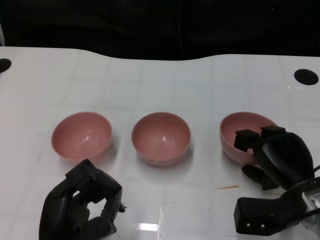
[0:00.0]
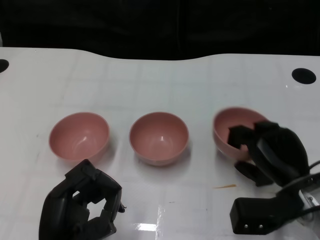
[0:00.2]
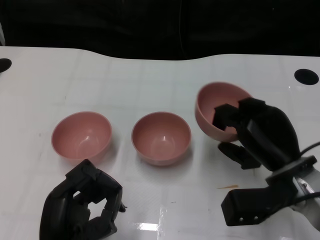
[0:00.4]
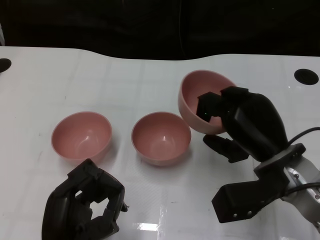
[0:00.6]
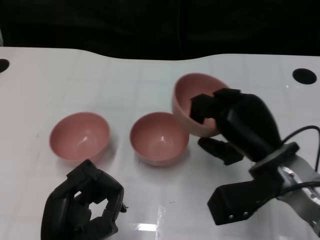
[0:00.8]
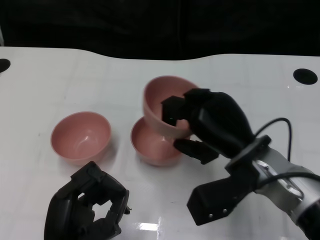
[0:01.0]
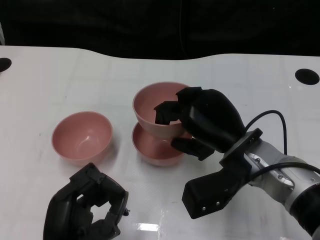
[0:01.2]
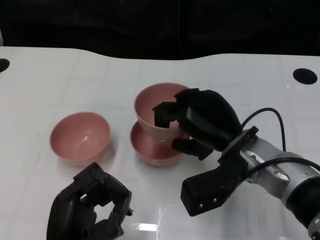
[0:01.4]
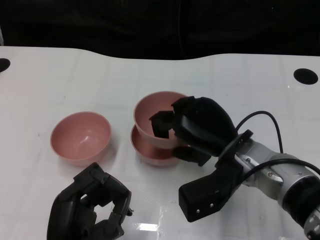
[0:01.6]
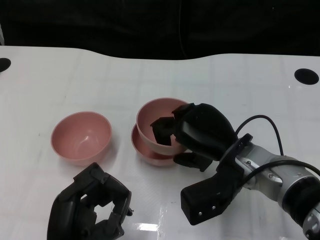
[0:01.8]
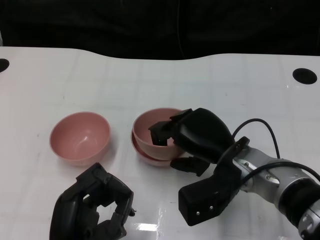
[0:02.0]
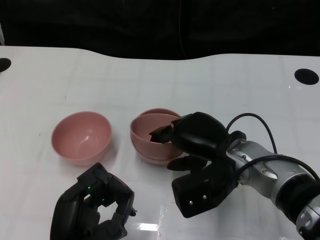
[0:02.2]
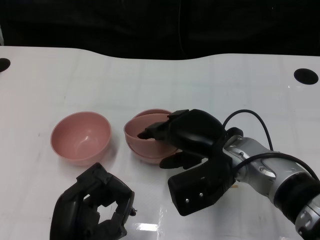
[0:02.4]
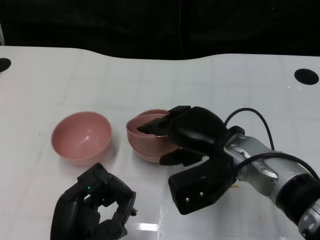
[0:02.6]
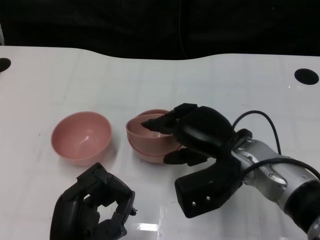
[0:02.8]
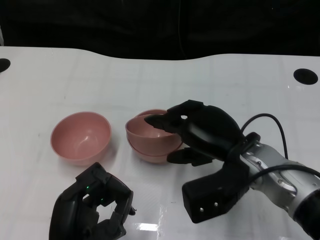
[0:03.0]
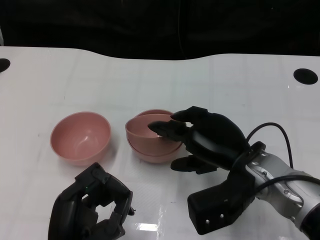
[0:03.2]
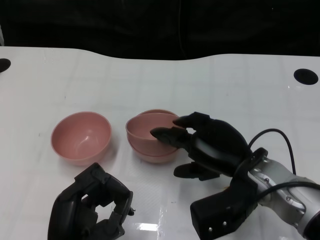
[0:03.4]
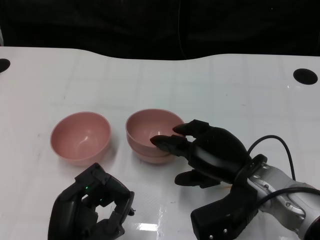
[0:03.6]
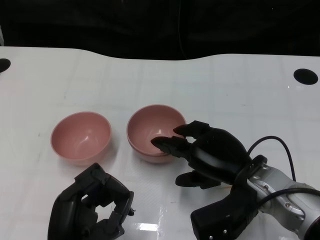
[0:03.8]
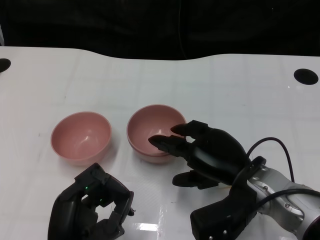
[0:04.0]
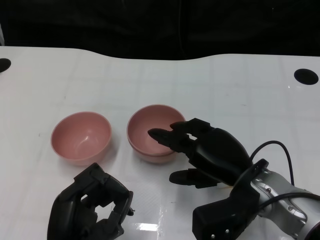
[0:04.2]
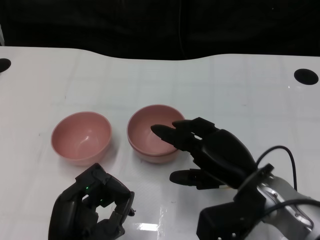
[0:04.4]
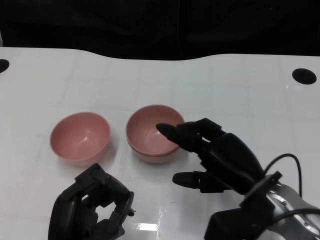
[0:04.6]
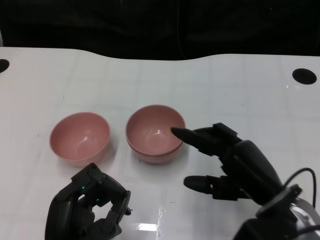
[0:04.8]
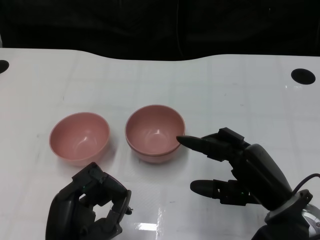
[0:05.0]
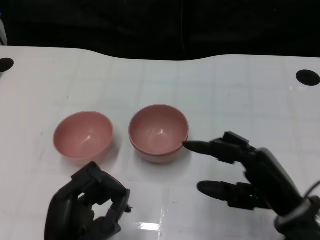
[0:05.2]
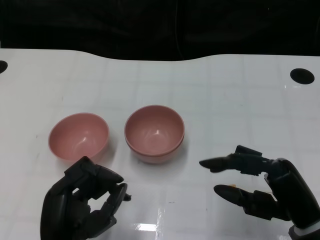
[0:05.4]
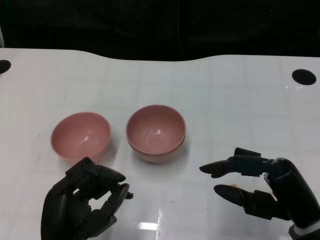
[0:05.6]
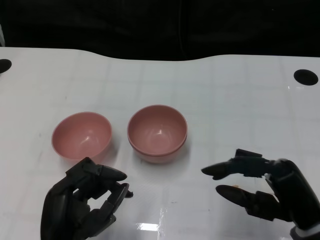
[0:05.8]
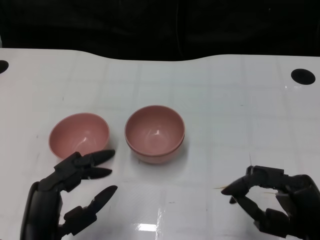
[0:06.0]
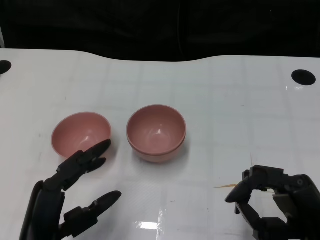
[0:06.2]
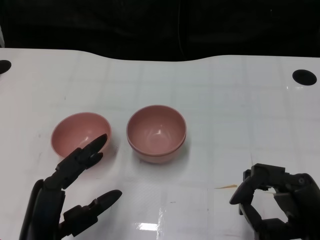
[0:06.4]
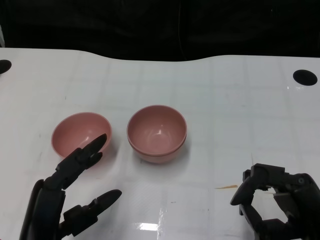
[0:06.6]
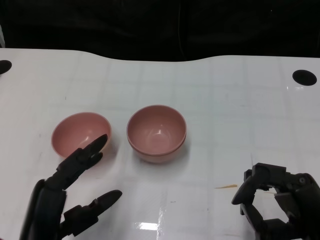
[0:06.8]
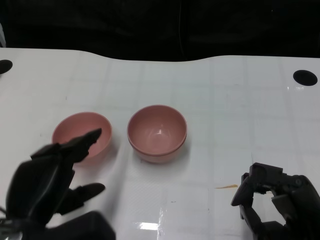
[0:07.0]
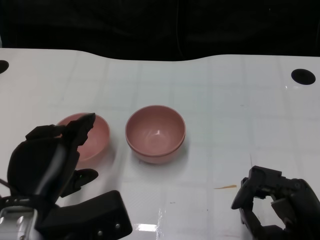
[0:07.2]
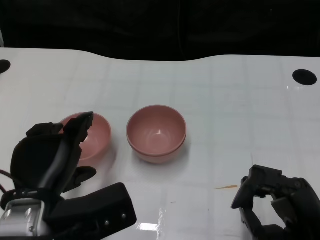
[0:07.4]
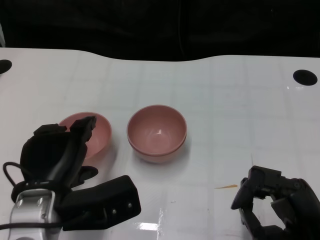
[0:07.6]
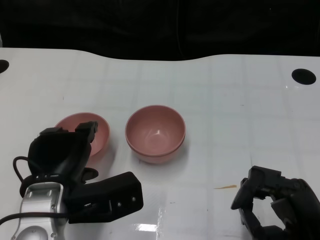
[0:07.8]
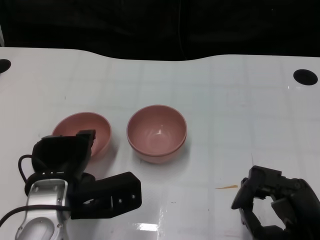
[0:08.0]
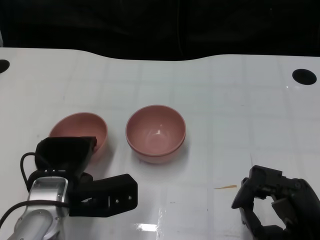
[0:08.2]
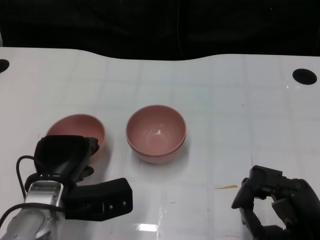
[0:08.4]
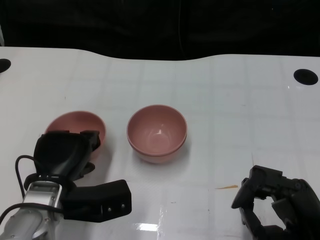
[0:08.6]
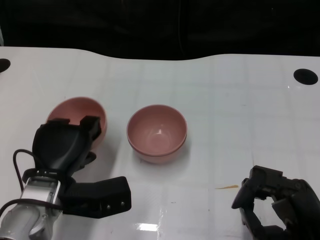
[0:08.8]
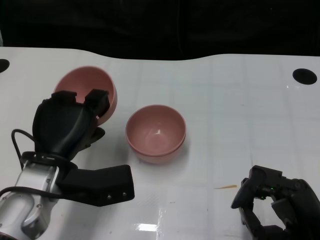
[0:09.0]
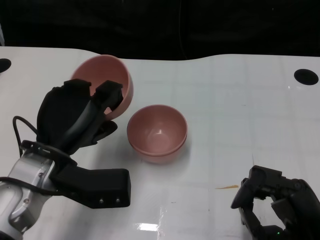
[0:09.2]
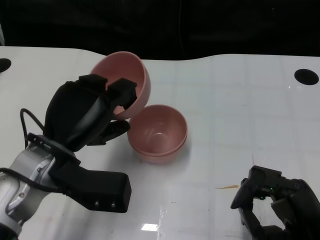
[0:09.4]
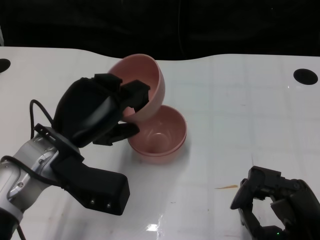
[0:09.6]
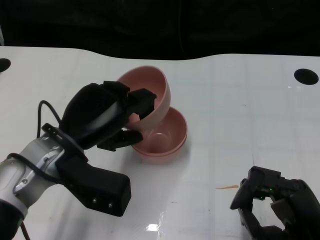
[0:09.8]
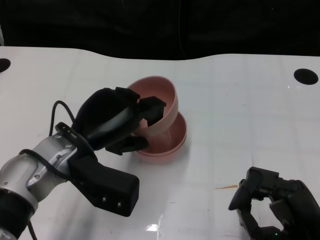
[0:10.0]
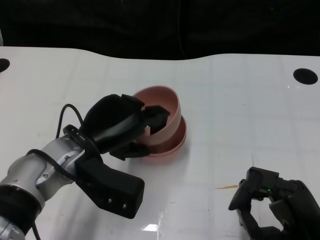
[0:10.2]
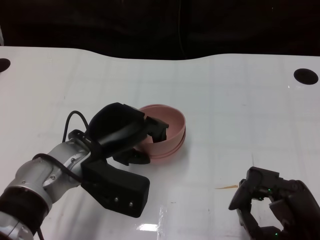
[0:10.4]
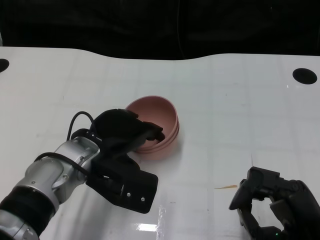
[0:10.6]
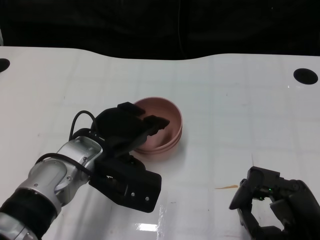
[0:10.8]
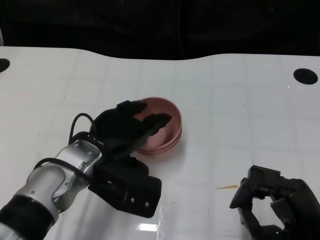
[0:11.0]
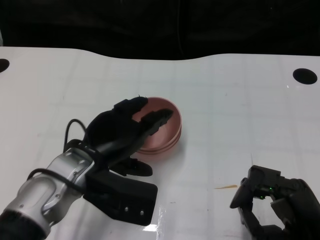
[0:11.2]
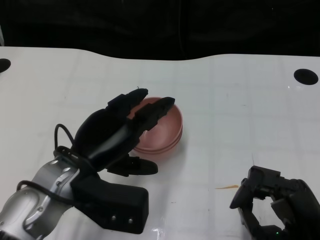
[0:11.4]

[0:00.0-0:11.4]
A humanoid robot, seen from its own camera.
Task of the whole recording: Pick up the bowl on one side of the table and place it on top of the middle bowl, then pick up the bowl on the other side of the table and place it on top of the middle bowls.
Step, 0.0 to 4.4 s: Place the bowl on the right onto the bowl in the middle with right gripper.
Step, 4.6 to 8.4 s: Grasp the bowl on the left with the left gripper.
0.0 to 1.4 s: The right hand goes about 10 cm to the left and upward.
2.8 to 4.2 s: The hands move only a little.
4.2 to 5.6 s: The right hand moves to the right and backward, roughly 10 cm.
5.6 to 7.2 s: The left hand heads upward, covering approximately 5 cm.
7.2 to 8.6 s: The left hand travels forward and downward by about 10 cm.
8.6 to 10.0 s: The left hand is displaced upward by approximately 5 cm.

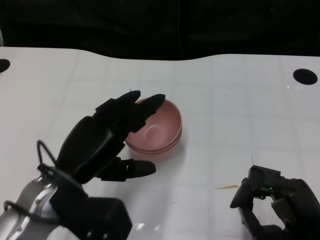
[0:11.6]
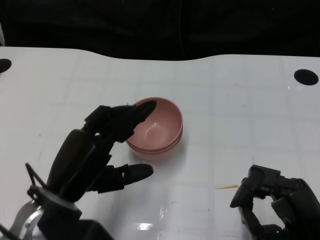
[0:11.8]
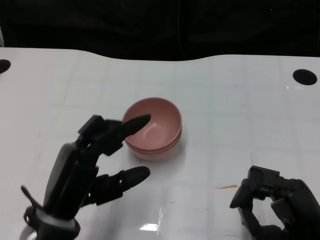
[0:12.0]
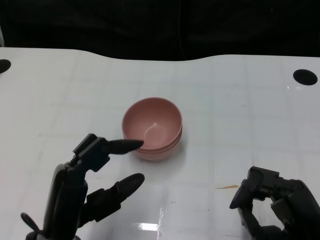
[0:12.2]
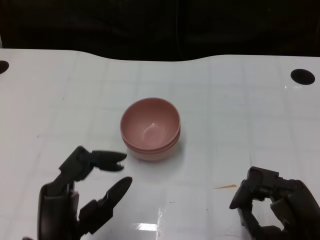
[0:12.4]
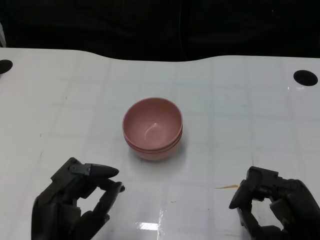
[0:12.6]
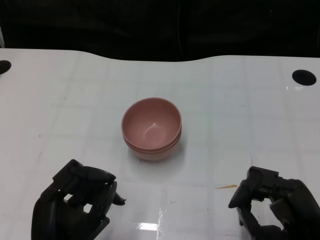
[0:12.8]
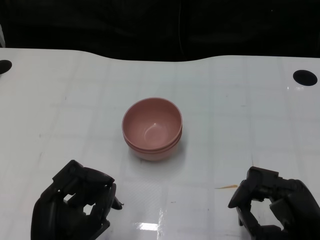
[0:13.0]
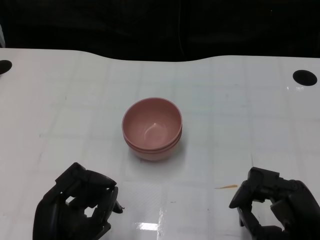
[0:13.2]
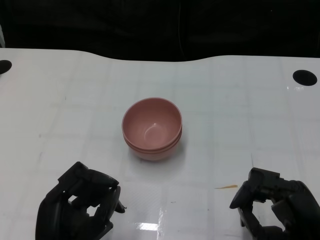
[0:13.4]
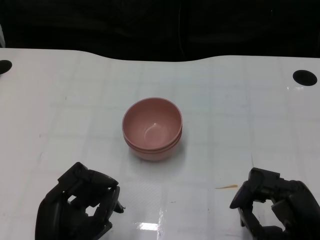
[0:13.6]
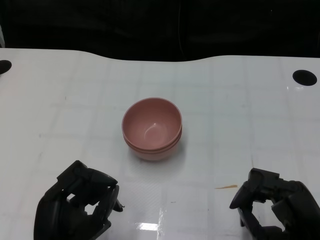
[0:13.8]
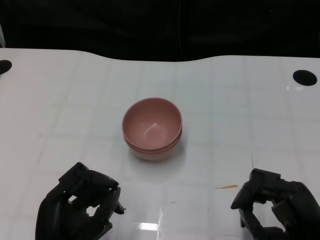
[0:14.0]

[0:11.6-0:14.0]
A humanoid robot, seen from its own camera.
Task of the whole recording: Pick up the bowl on one side of the table and place it on top of the middle bowl, then pick up the bowl on the other side of the table and place it on top of the middle bowls.
11.6 to 12.8 s: The left hand heads backward and downward, covering about 10 cm.
12.8 to 14.0 s: Both hands stay about where they are.

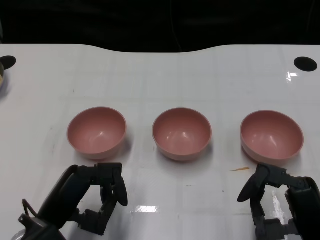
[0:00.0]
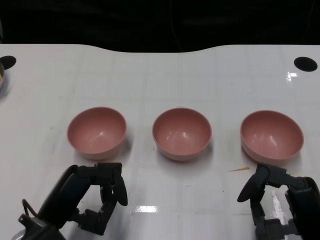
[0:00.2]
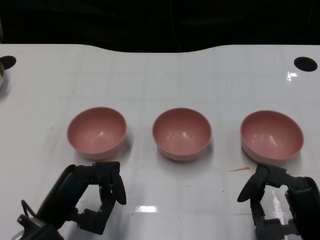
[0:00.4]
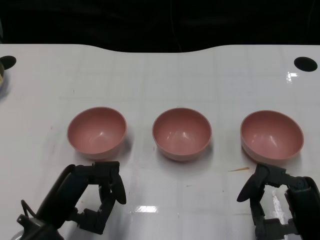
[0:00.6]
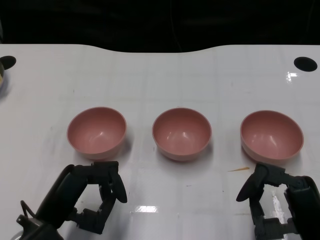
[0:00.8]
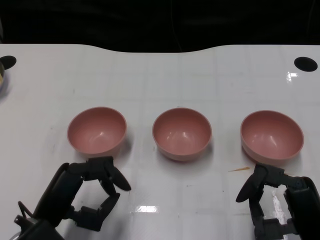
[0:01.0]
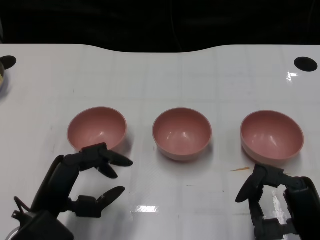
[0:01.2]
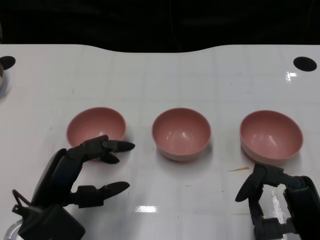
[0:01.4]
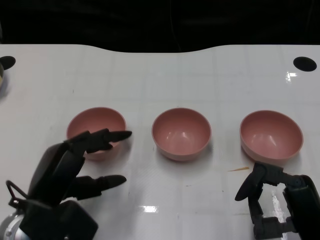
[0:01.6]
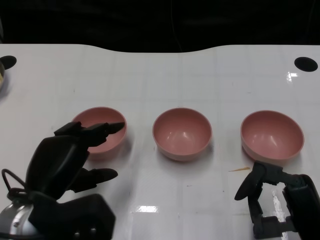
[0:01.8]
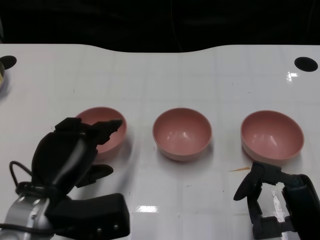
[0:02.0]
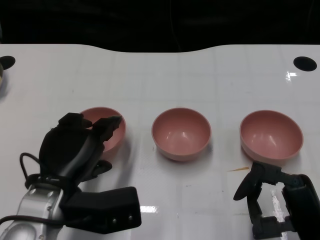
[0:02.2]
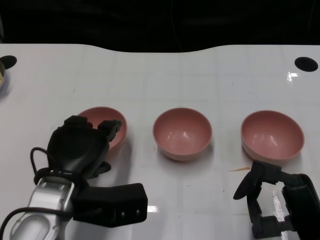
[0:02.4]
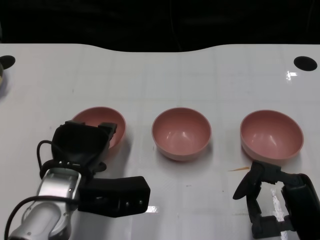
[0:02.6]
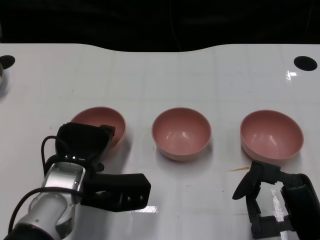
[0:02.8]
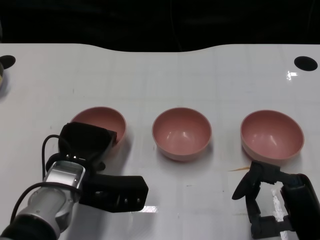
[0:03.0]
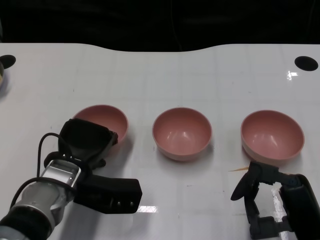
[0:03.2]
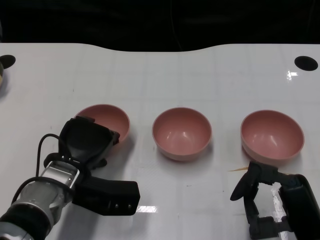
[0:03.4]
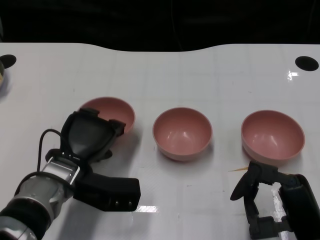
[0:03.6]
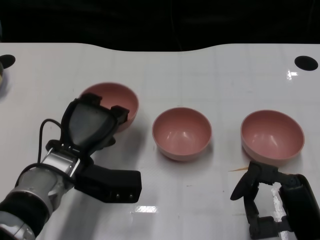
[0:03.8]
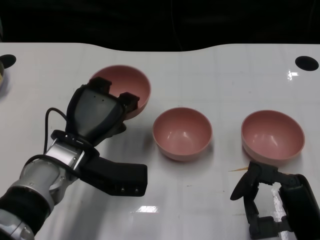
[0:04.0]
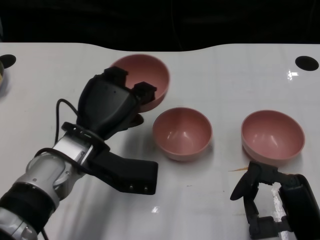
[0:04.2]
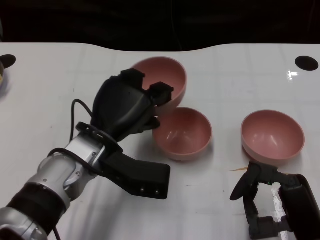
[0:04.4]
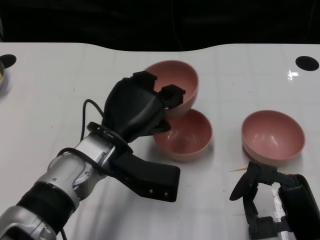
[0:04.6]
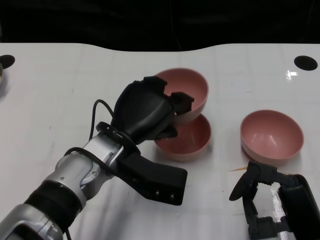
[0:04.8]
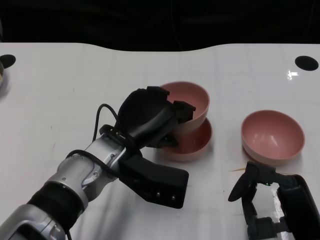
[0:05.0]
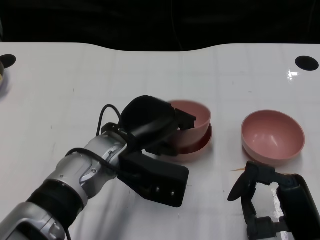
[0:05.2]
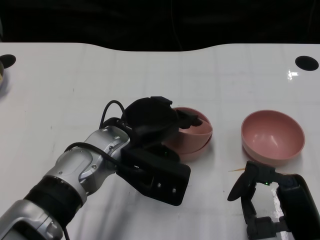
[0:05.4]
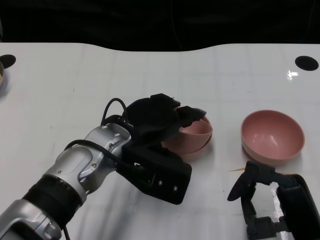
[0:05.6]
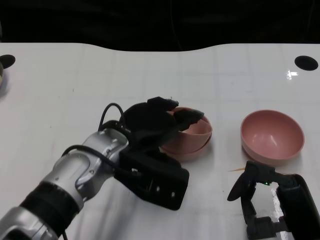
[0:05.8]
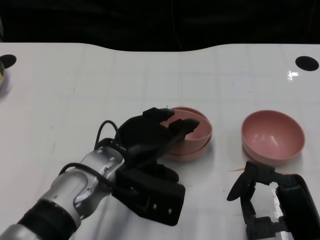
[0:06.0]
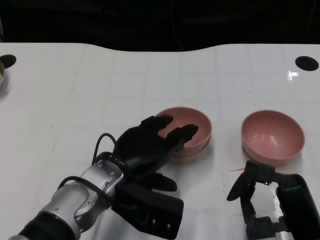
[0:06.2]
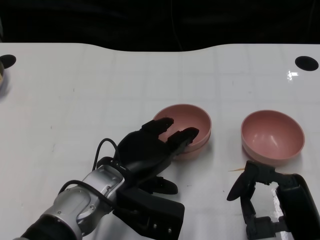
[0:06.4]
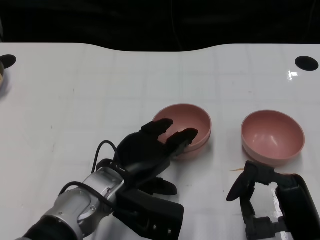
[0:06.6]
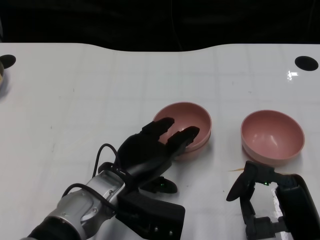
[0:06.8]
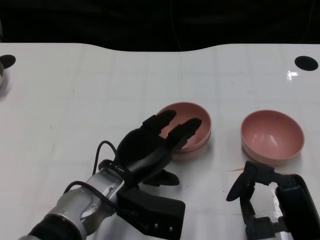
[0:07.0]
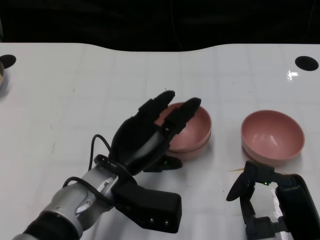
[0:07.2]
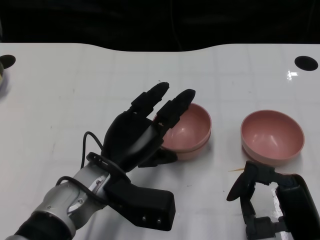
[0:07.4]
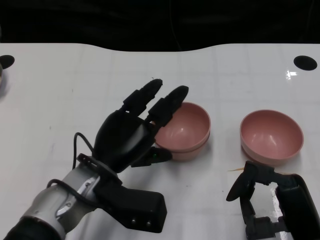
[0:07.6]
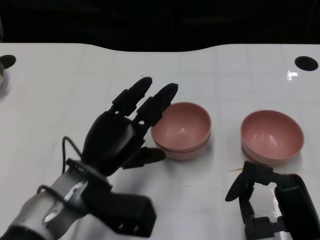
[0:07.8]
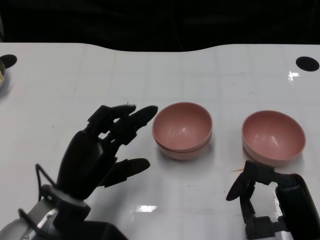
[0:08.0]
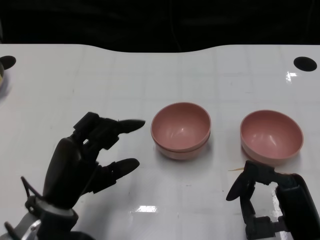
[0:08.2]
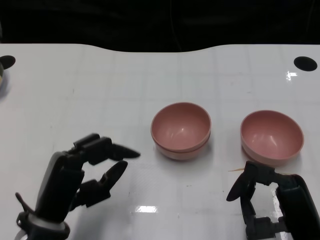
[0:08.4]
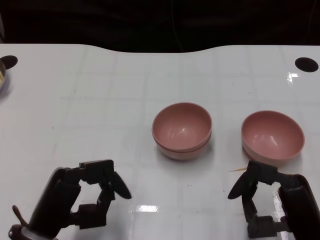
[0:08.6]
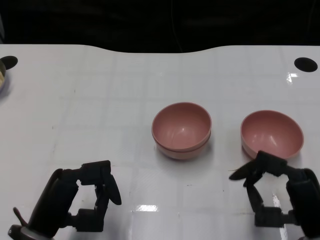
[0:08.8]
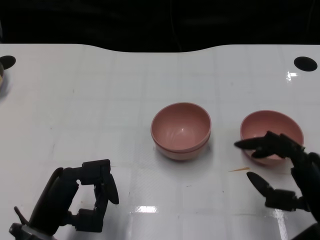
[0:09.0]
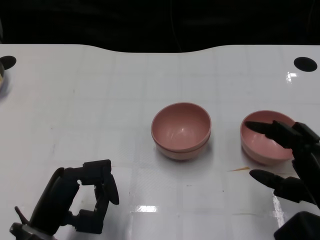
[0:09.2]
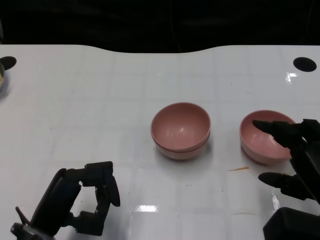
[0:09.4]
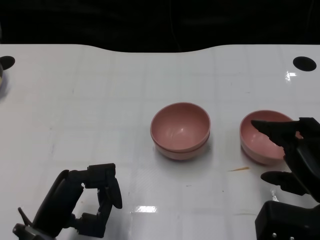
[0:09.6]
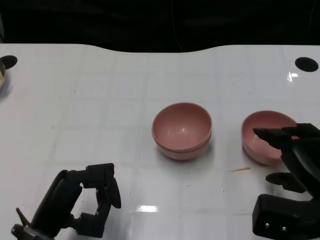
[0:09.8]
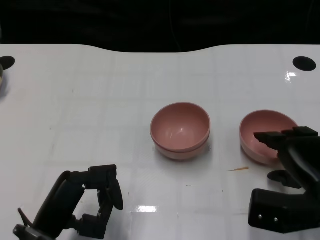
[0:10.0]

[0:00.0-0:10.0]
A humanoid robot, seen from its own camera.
Task of the whole recording: Pick up the bowl on one side of the table and place it on top of the middle bowl, then pick up the bowl on the other side of the table and place it on top of the middle bowls.
Step, 1.0 to 3.2 s: Grasp the bowl on the left with the left gripper.
Step, 3.4 to 7.8 s: Place the bowl on the left onto the bowl in the middle with left gripper.
1.4 to 2.8 s: The left hand is displaced forward by approximately 5 cm.
5.8 to 7.2 s: The left hand travels downward by some 5 cm.
7.2 to 8.6 s: The left hand is displaced to the left and backward by approximately 15 cm.
8.6 to 10.0 s: The right hand moves forward, some 5 cm.
